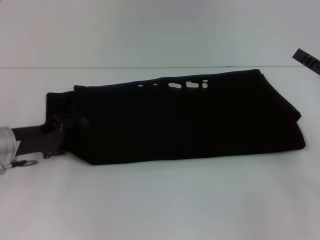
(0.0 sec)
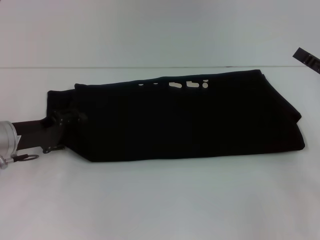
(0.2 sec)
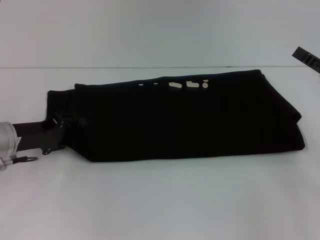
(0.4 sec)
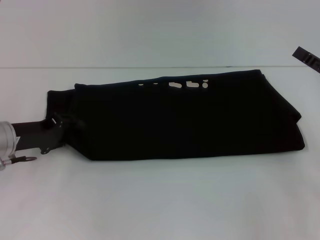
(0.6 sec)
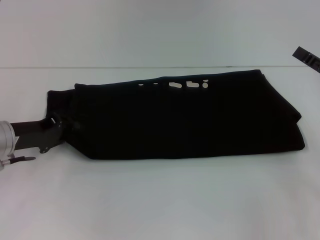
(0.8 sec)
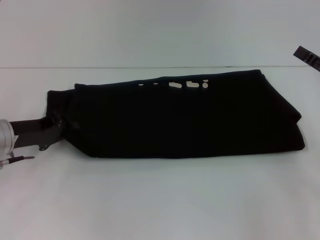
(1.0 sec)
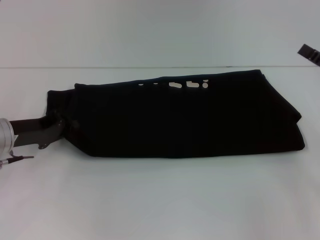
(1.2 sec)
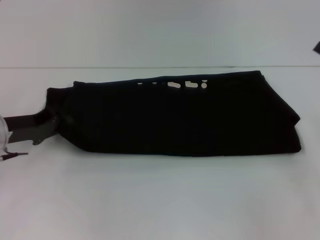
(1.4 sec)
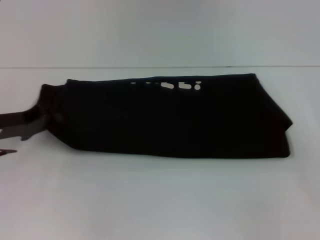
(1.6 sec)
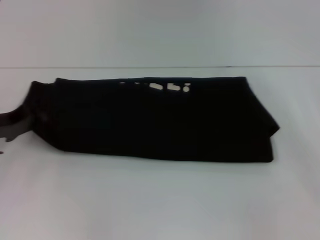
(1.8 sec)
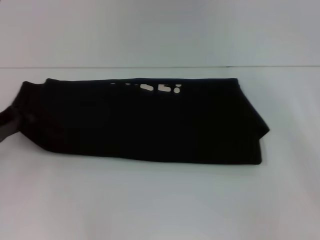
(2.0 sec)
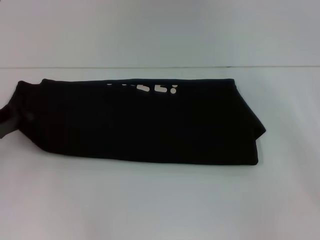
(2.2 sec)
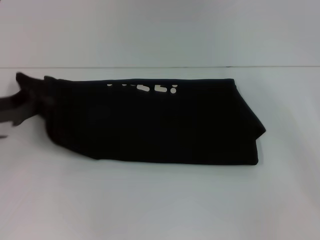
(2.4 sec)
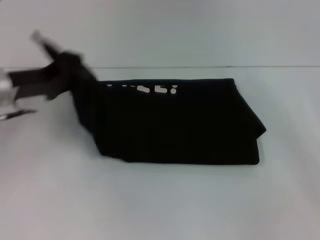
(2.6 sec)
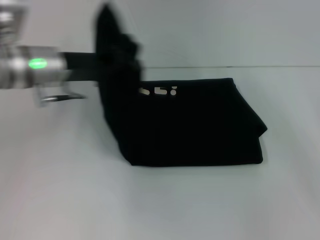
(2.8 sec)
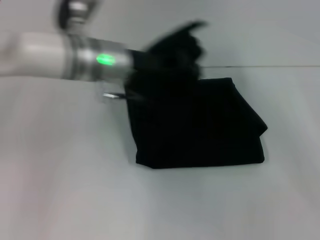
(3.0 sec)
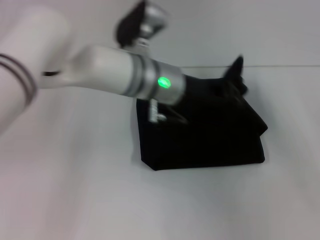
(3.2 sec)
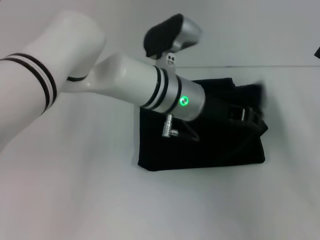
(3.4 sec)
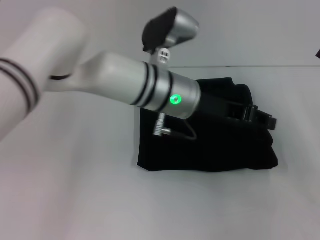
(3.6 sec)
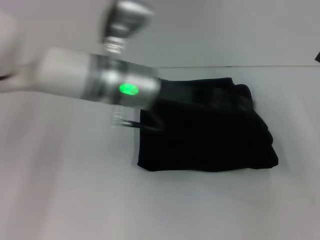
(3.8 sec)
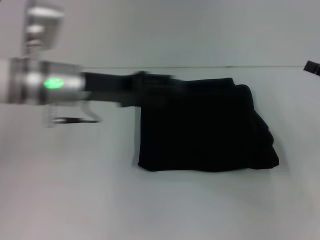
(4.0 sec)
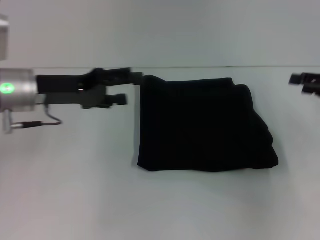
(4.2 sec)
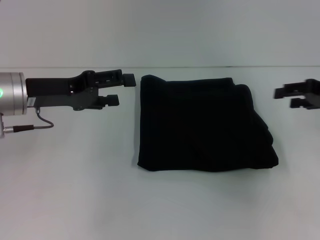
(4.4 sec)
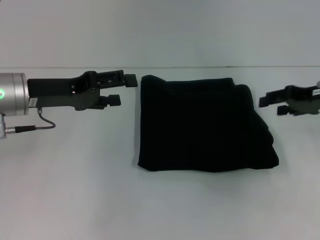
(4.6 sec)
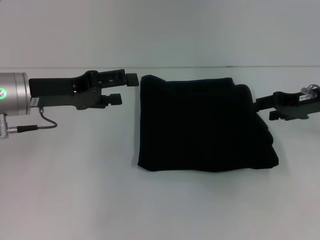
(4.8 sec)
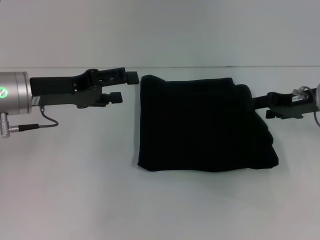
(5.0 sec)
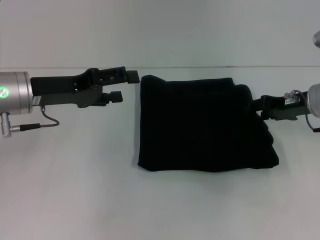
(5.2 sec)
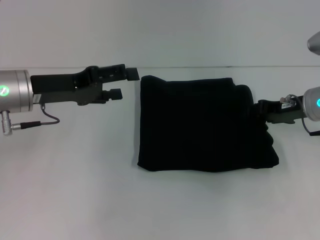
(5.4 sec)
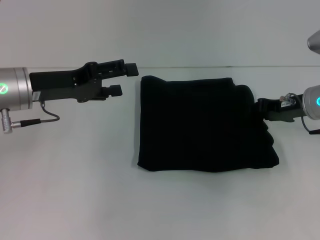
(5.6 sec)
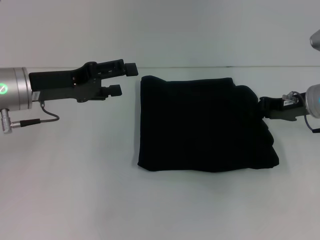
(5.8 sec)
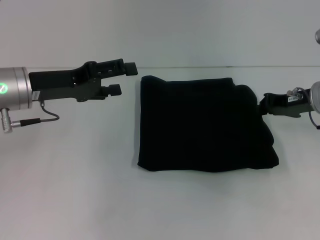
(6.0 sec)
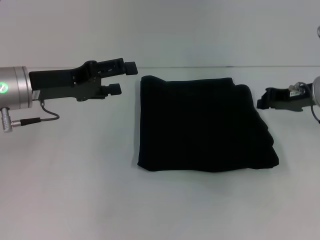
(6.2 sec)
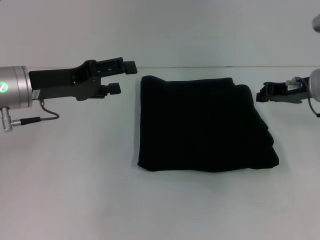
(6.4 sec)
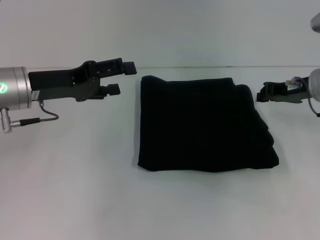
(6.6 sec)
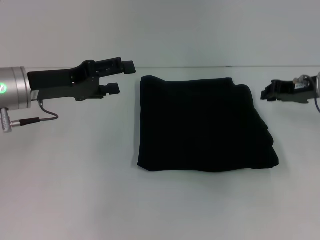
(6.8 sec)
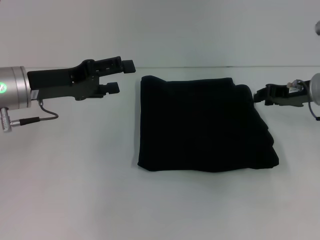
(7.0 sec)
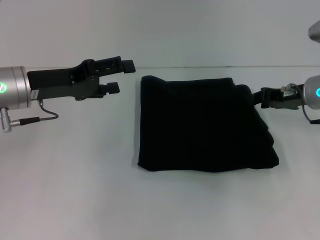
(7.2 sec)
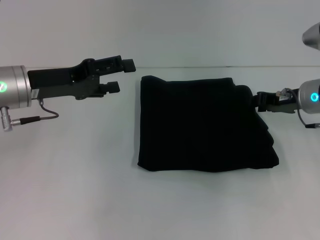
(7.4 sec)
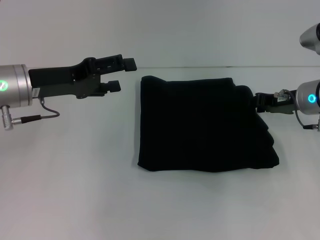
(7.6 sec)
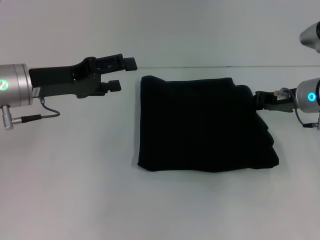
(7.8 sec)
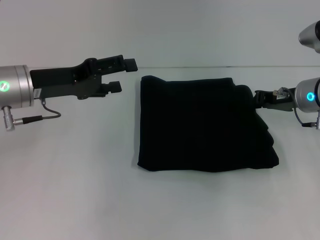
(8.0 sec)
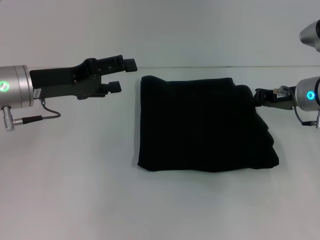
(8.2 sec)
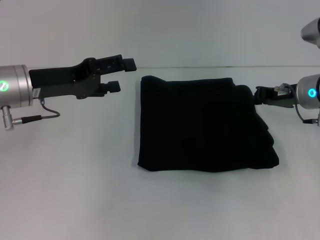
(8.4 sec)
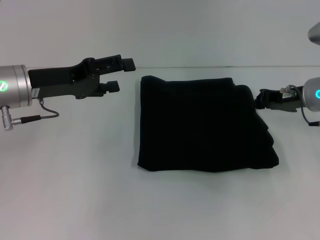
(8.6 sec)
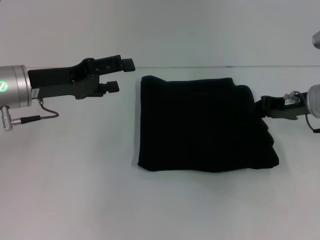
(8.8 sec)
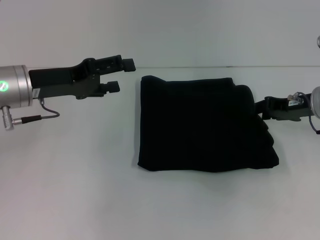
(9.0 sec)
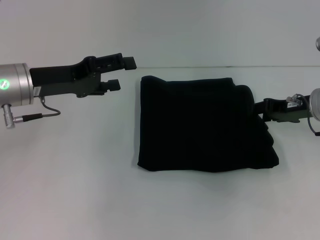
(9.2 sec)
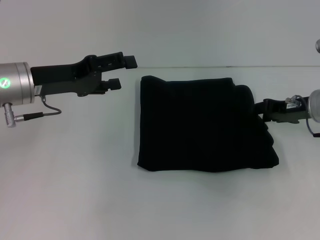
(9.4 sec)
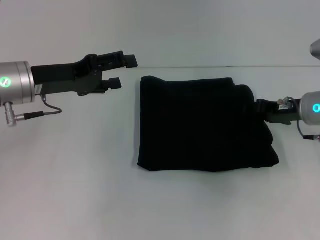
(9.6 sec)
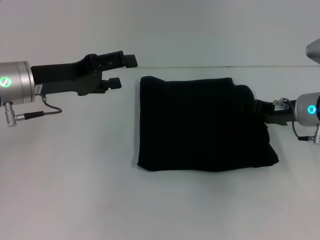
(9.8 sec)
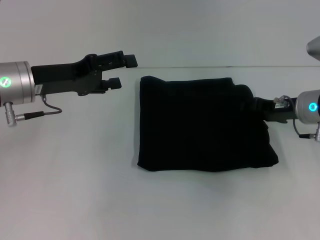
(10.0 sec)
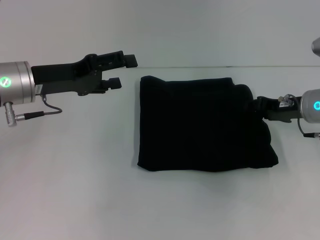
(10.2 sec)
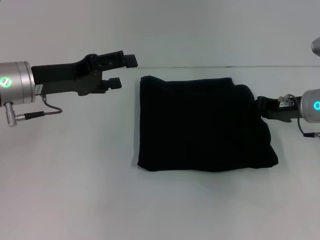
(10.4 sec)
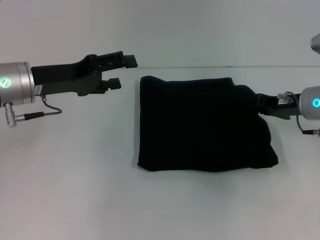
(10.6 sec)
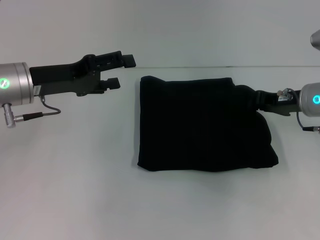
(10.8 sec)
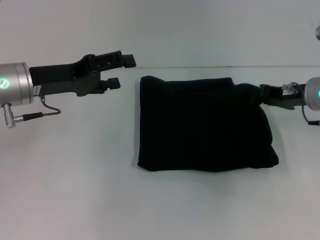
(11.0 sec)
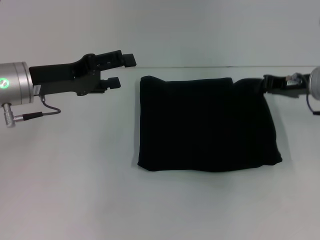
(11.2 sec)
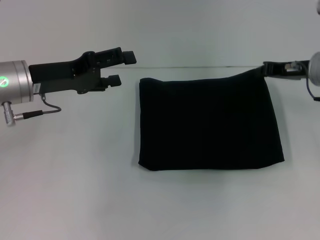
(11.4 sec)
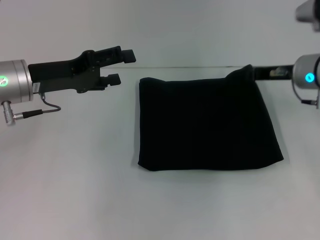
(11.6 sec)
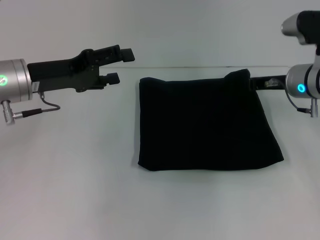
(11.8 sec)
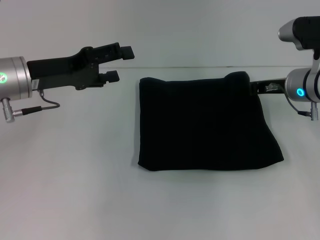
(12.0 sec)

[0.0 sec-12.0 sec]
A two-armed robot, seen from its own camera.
Step, 0.0 sec to 3.6 sec: Fold the clothes with your left hand.
0.0 sec to 1.6 sec: The left gripper closes up. Meanwhile the right gripper changes place by approximately 5 cm.
1.6 sec to 3.0 sec: The left gripper shifts roughly 25 cm to the right and upward.
3.0 sec to 4.4 sec: The left gripper travels to the left by approximately 15 cm, and opens, while the right gripper goes some 5 cm forward.
4.4 sec to 6.0 sec: The right gripper goes roughly 5 cm to the left, and closes its fingers.
6.0 sec to 10.4 sec: The grippers make only small movements.

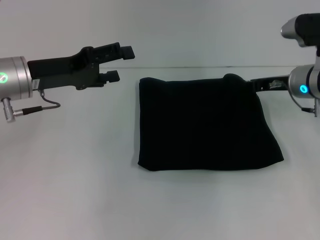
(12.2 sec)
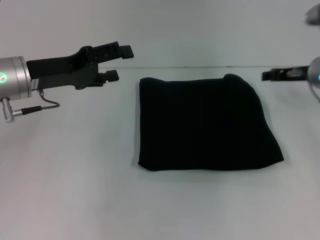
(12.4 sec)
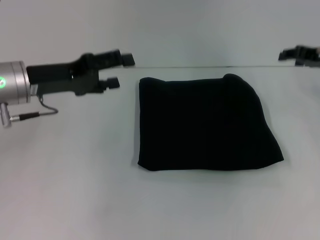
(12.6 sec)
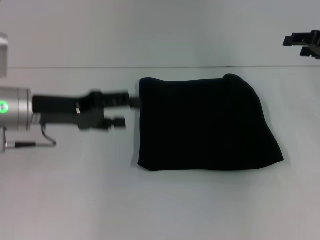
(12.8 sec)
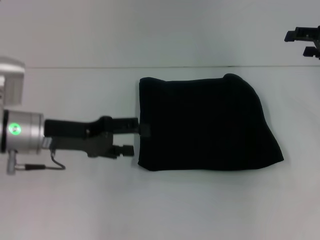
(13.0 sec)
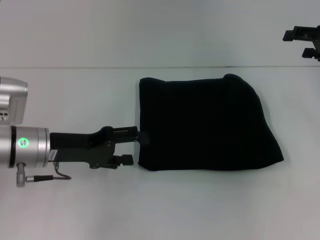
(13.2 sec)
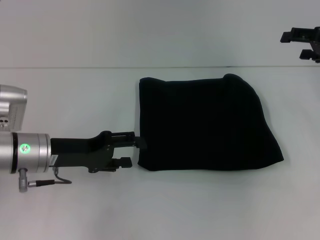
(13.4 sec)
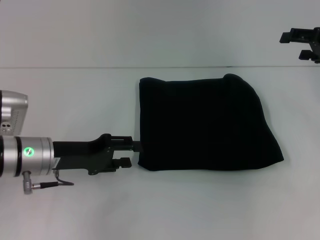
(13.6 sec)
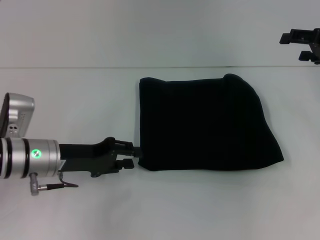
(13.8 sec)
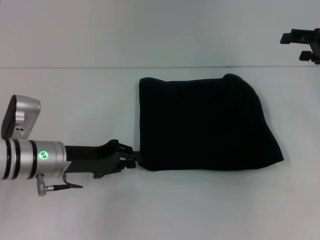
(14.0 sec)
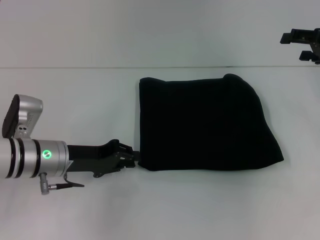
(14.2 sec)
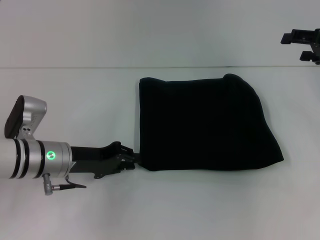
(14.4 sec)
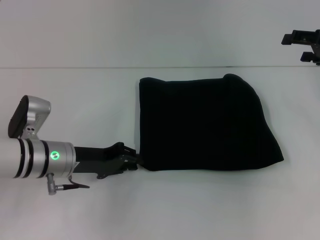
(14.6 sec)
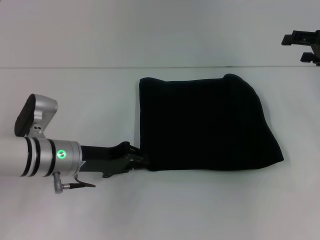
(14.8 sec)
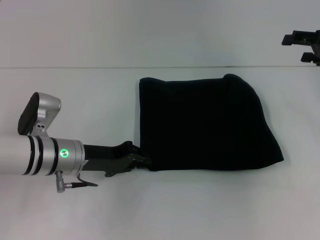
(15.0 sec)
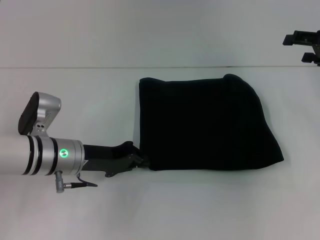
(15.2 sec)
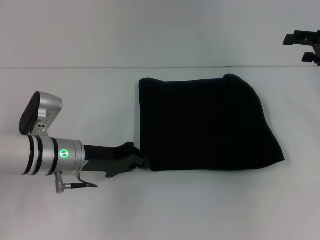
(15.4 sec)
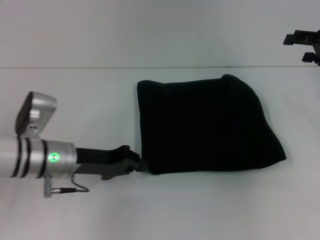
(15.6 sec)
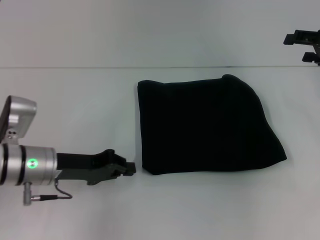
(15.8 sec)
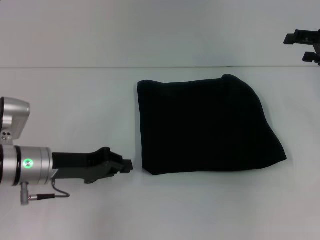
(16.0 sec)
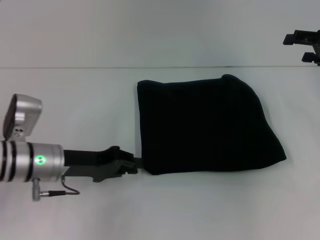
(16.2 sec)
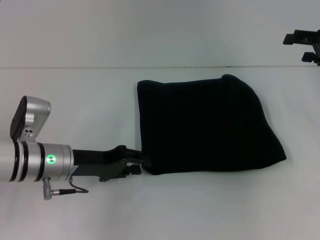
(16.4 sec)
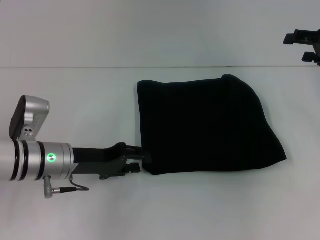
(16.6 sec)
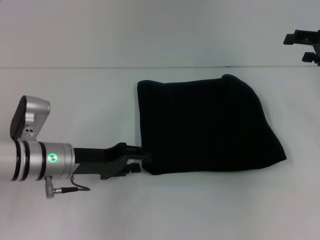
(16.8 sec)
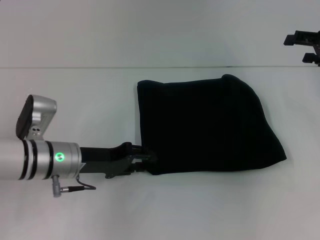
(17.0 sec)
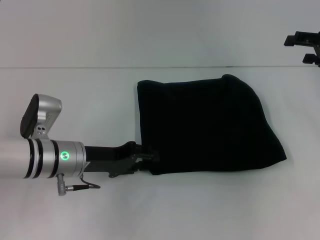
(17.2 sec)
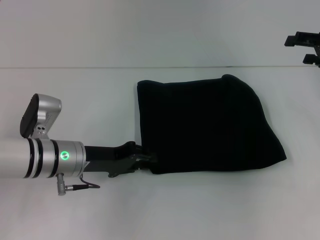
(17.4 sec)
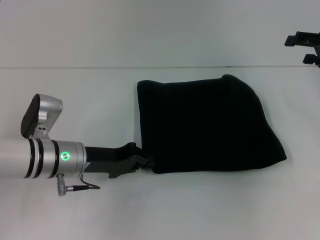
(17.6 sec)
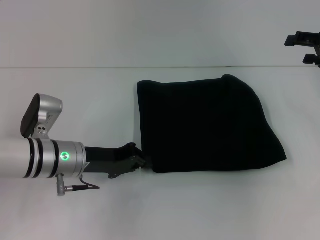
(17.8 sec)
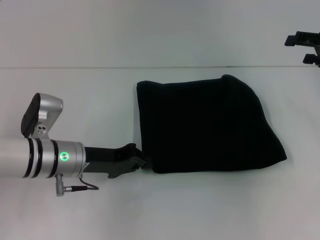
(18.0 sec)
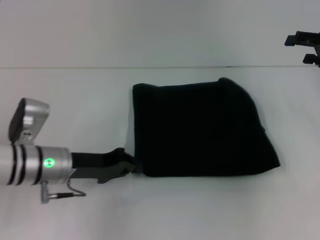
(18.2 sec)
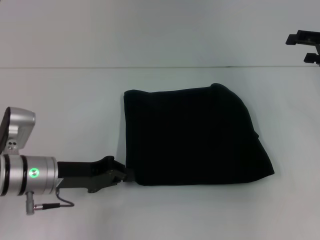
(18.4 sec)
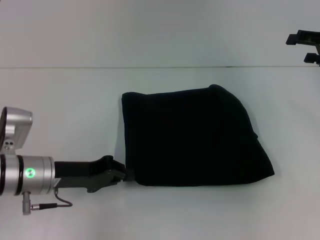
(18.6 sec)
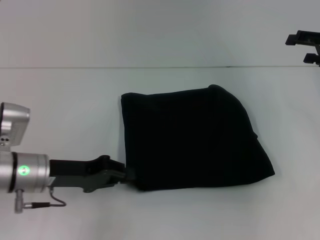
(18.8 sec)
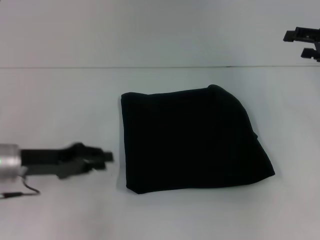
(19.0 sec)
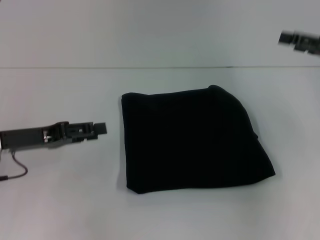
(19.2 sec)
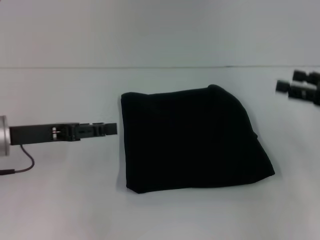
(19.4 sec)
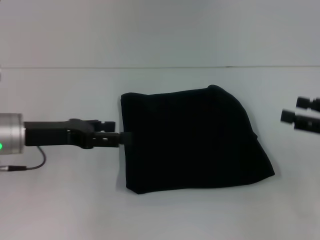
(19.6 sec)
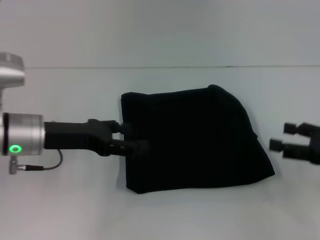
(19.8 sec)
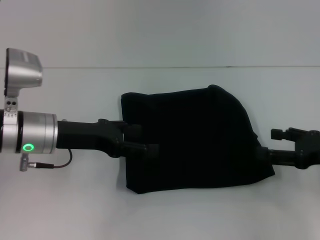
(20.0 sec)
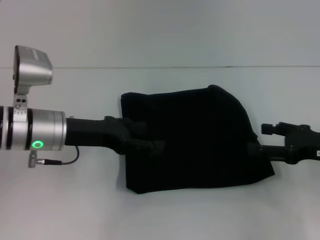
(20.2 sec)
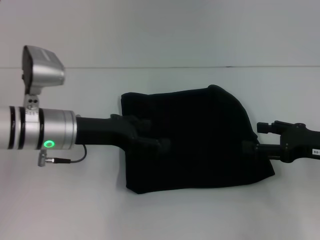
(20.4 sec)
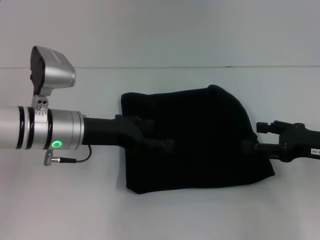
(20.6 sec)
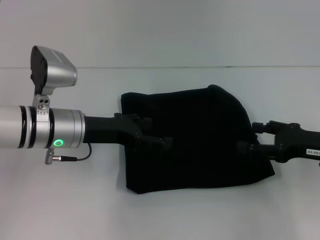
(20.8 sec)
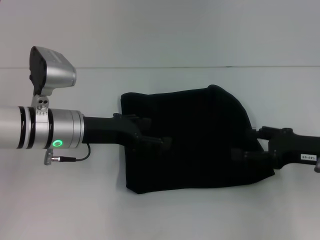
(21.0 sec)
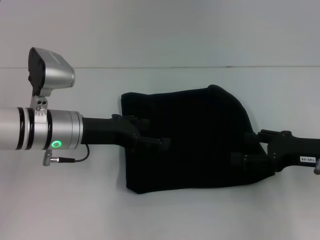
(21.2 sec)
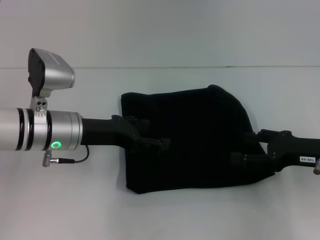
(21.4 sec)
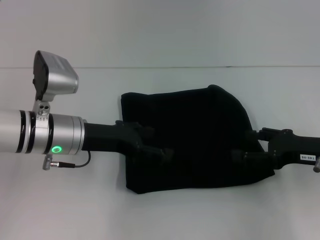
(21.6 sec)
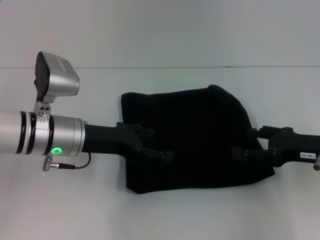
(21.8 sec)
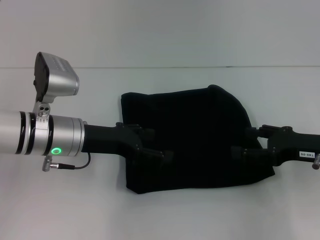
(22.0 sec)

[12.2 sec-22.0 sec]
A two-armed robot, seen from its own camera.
12.2 sec to 13.6 sec: The right gripper moves to the right and upward, roughly 10 cm, and opens its fingers. The left gripper goes roughly 10 cm downward.
13.6 sec to 15.0 sec: The left gripper closes.
15.0 sec to 17.8 sec: The grippers stay close to where they were, moving slightly.
17.8 sec to 19.2 sec: The left gripper travels to the left and upward by some 10 cm.
19.2 sec to 20.6 sec: The left gripper travels to the right by some 10 cm, and opens, while the right gripper moves downward and backward, roughly 10 cm.
20.6 sec to 22.0 sec: The grippers make only small movements.
